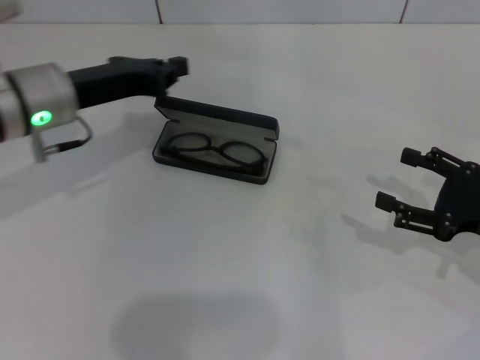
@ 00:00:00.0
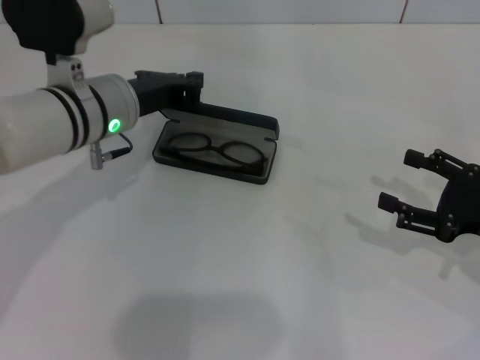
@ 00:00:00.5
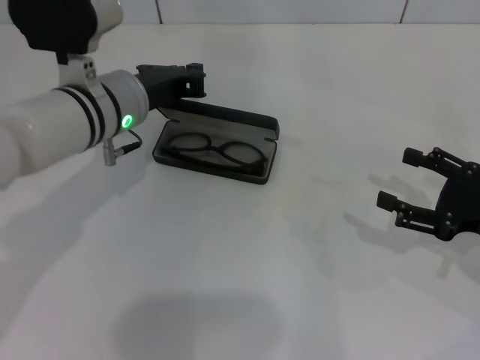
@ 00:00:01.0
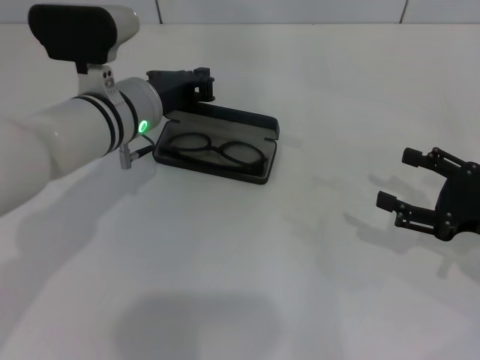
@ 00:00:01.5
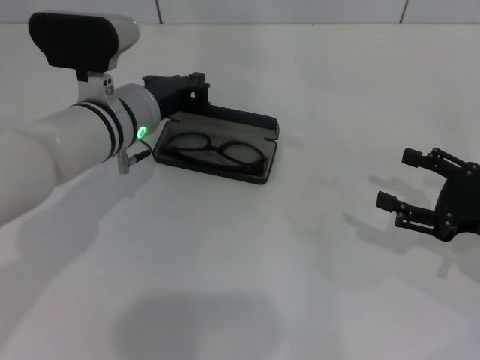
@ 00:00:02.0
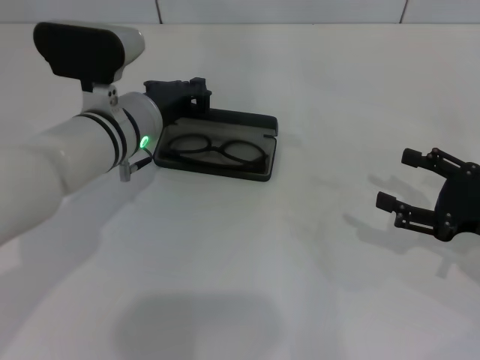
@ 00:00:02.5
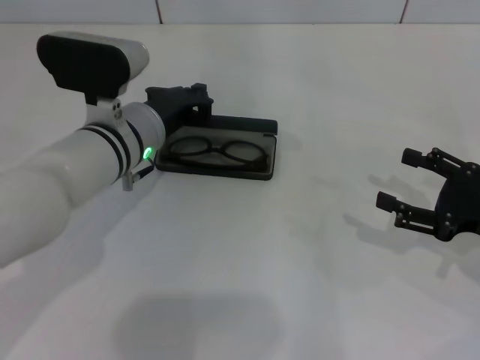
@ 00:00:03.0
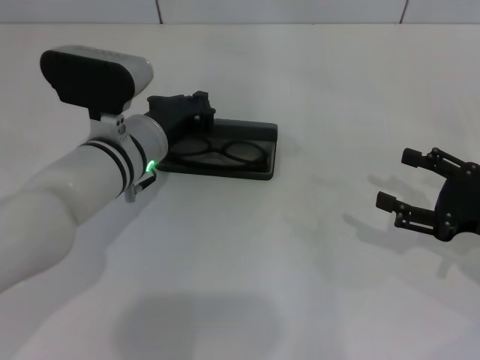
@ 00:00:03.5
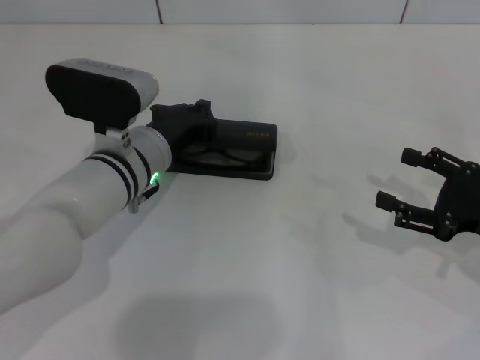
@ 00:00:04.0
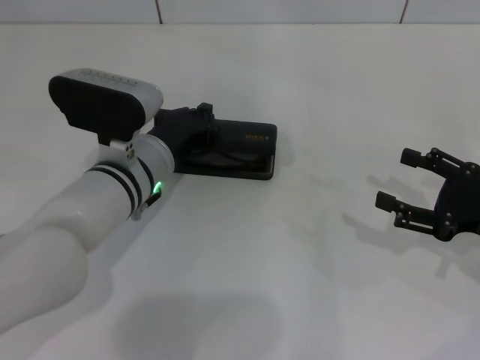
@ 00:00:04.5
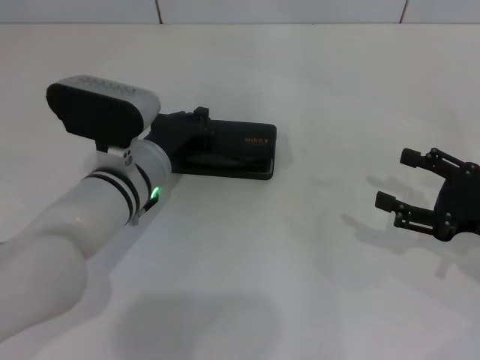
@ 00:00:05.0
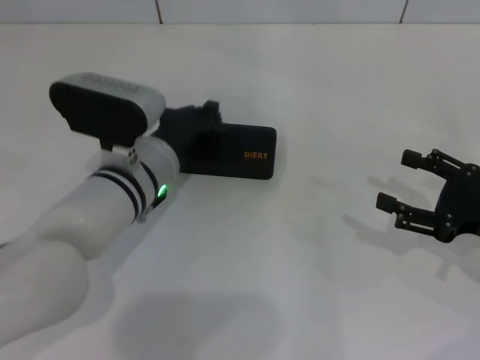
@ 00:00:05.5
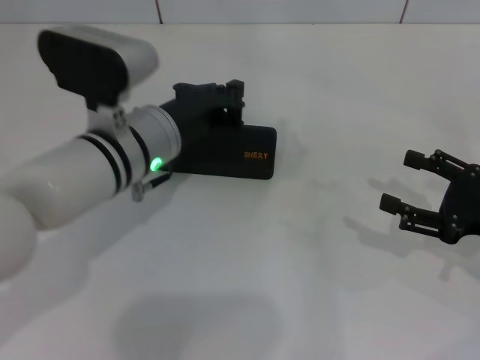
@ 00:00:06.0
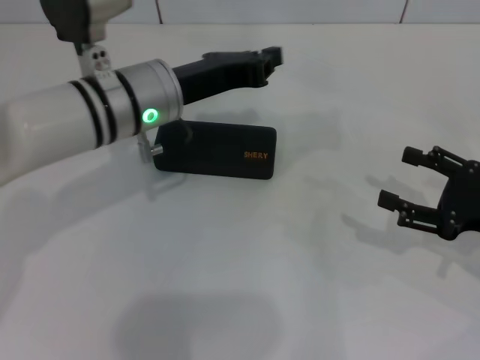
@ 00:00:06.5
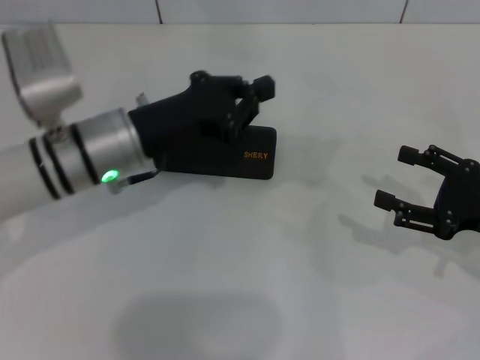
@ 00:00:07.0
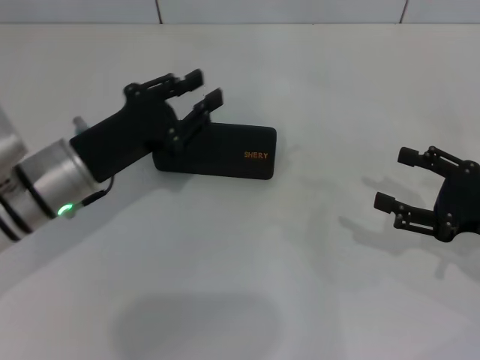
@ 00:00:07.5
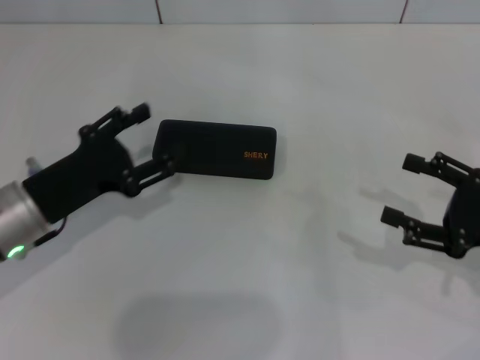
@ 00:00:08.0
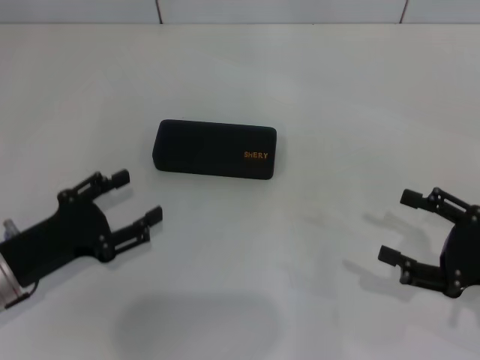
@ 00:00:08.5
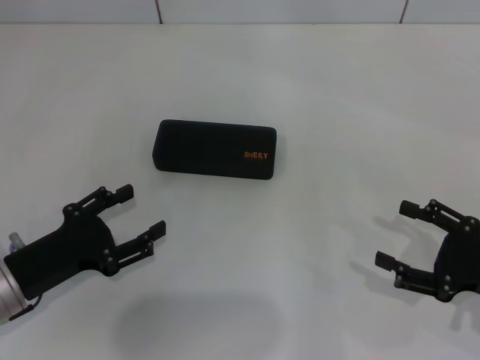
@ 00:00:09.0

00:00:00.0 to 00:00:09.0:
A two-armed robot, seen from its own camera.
Step, 00:00:00.0 to 00:00:05.0: Close the glasses case with your left hand.
00:00:00.0 to 00:00:02.0: The left gripper travels to the right by roughly 5 cm.
00:00:02.0 to 00:00:04.5: The left gripper changes place by about 5 cm.
00:00:07.0 to 00:00:09.0: The right gripper moves roughly 5 cm. Meanwhile the left gripper moves backward, to the left and downward, approximately 15 cm, and opens up.
